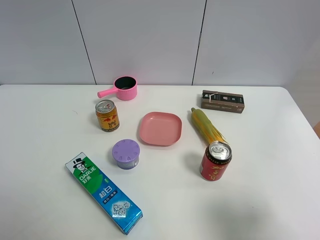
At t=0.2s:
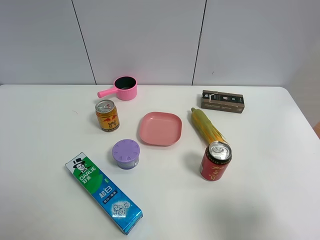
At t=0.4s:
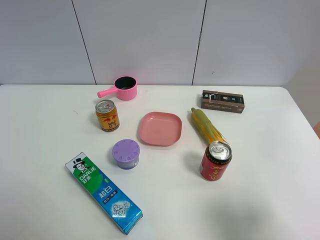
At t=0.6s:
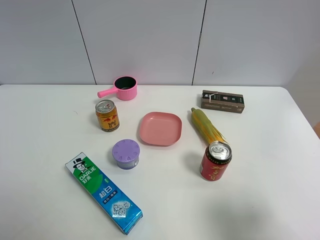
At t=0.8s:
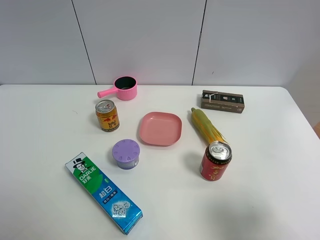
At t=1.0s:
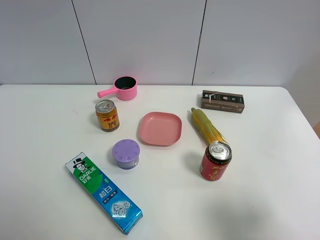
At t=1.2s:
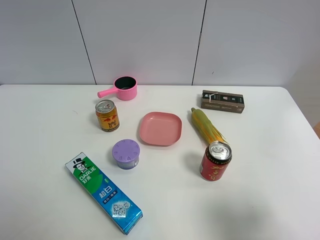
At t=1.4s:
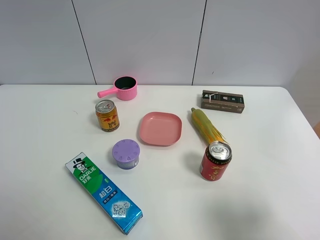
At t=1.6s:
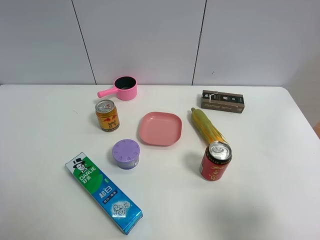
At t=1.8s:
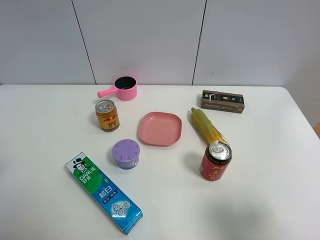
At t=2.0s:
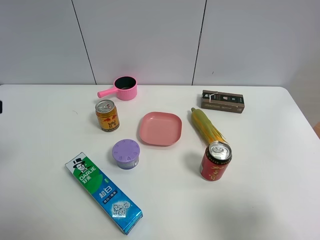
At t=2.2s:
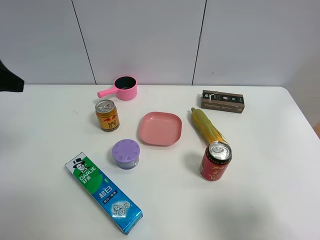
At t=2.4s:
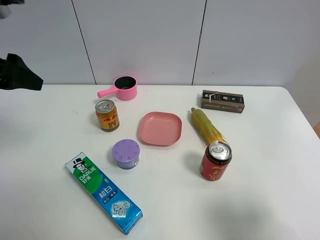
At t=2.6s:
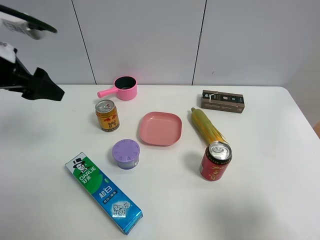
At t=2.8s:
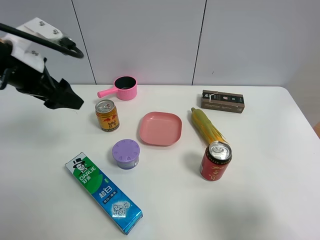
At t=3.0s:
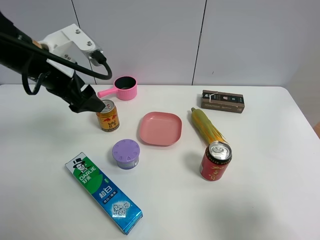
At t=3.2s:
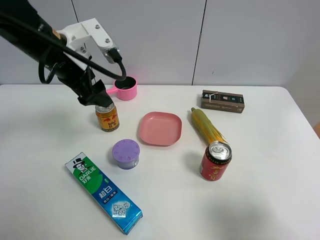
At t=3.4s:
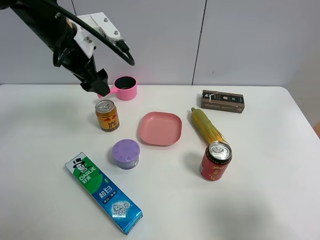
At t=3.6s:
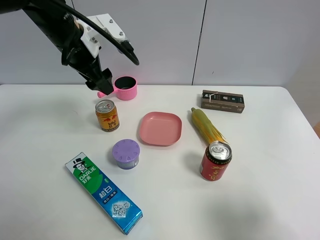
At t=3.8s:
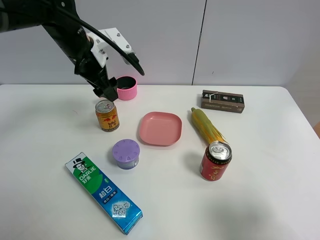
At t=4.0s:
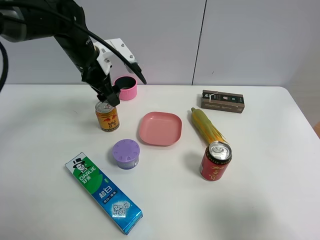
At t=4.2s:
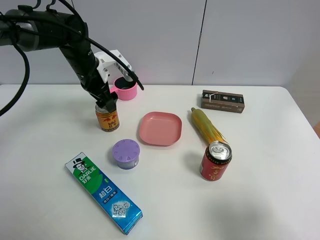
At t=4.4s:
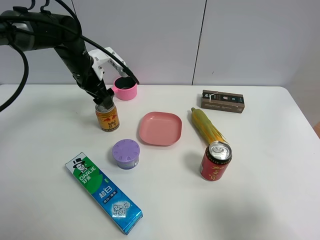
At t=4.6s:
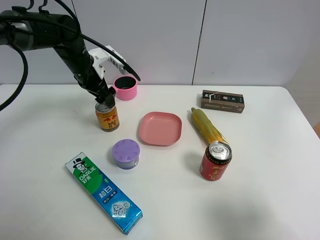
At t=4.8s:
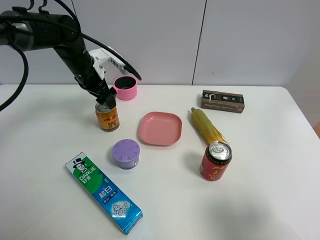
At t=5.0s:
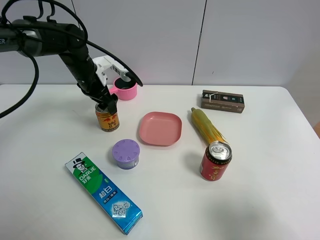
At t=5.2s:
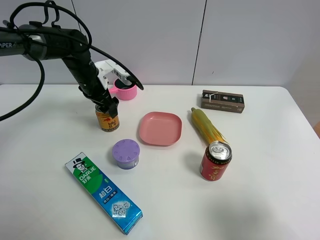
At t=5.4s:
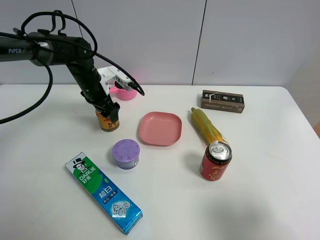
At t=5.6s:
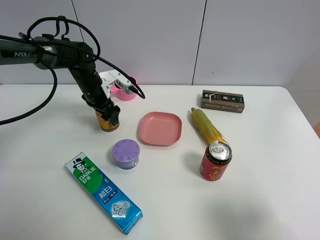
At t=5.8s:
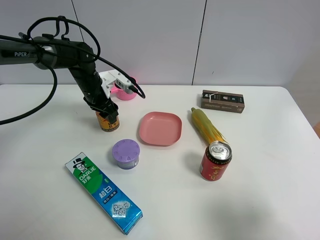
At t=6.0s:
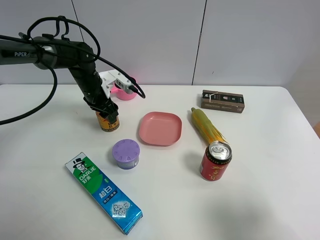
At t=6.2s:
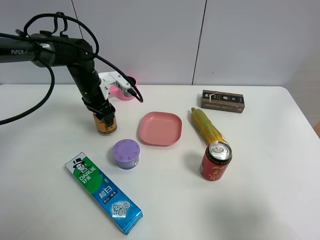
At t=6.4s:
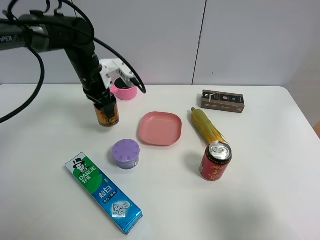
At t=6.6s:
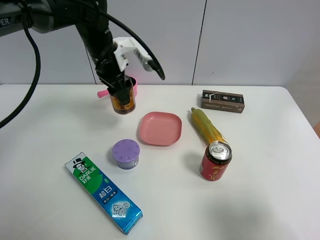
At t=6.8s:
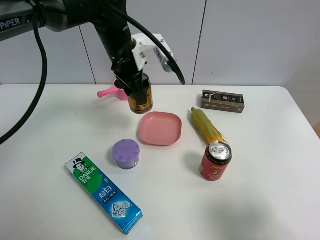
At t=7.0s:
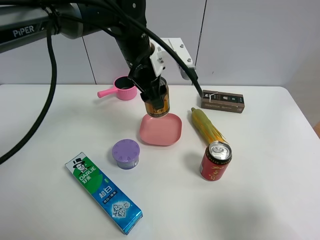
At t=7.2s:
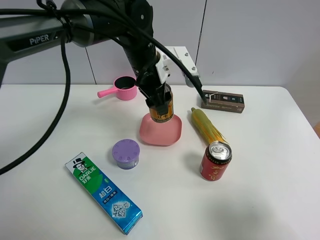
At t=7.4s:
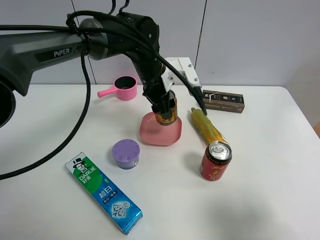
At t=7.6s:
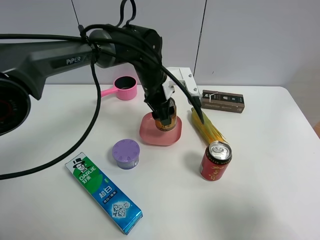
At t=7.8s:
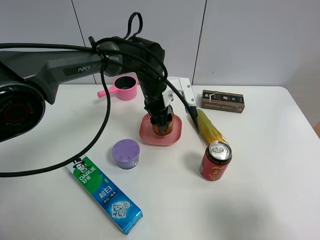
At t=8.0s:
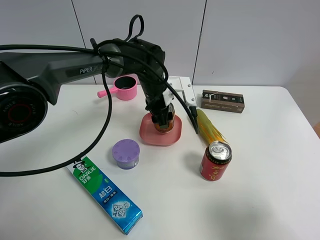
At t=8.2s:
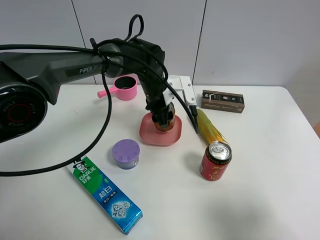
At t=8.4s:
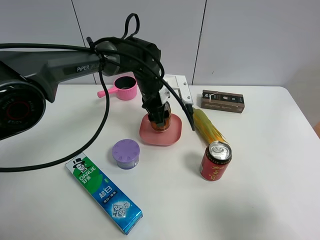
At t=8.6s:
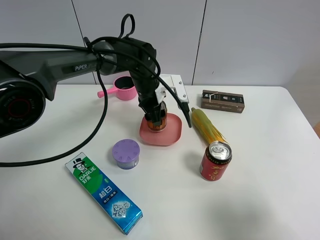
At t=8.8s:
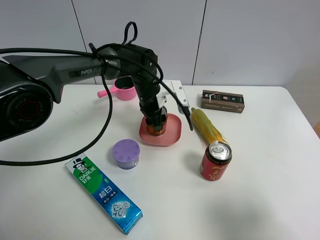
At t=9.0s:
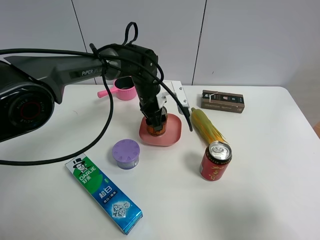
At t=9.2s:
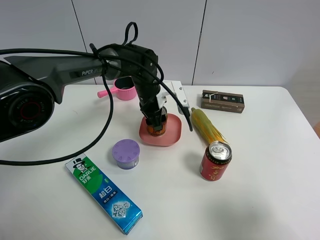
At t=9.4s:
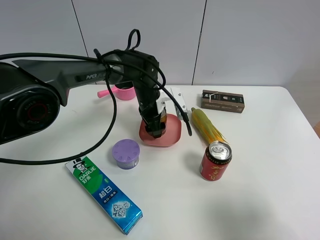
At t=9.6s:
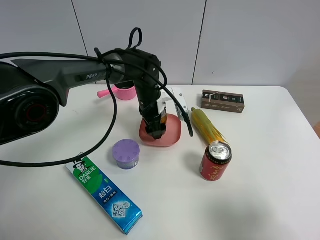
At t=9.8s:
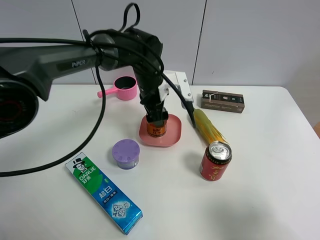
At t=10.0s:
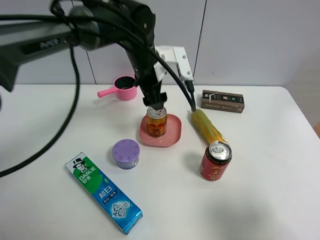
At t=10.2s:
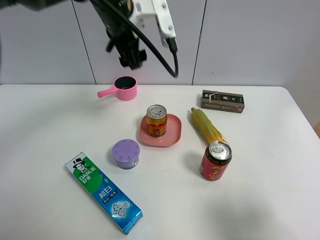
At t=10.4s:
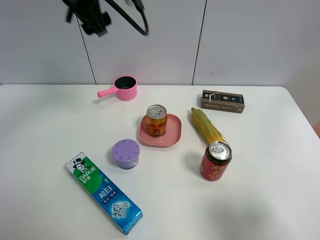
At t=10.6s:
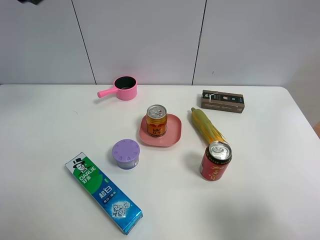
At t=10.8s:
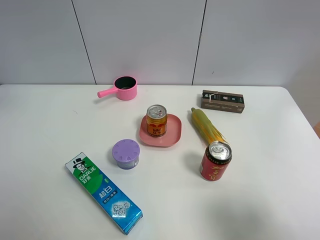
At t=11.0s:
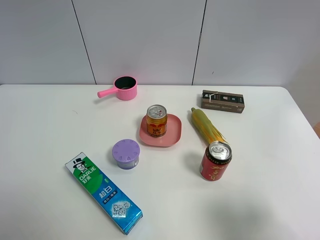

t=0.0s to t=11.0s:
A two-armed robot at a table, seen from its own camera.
Task of the whole recording: the gripper move the object.
Step, t=0.0s to t=5.8s: Grasp the Jia Duo Bao with the left gripper.
Step, t=6.0s to t=9.8s: Place the Jia Duo Bao into the pink plate with the left gripper.
t=1.6s to t=3.2s: The left gripper shifts roughly 30 cm forward and to the right.
t=3.2s to t=4.8s: The left gripper moves downward and forward, roughly 15 cm.
t=4.8s to t=6.2s: The left gripper closes.
t=6.2s to t=7.8s: The left gripper goes roughly 15 cm to the right.
t=7.8s to t=9.4s: The left gripper opens its fingers.
t=9.4s to t=11.0s: The left gripper heads upward, to the left and backward, covering about 60 cm.

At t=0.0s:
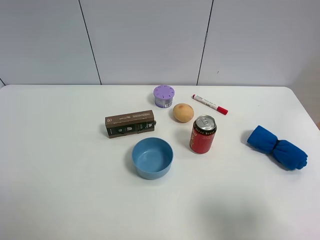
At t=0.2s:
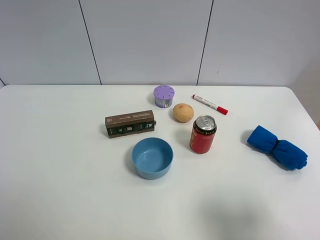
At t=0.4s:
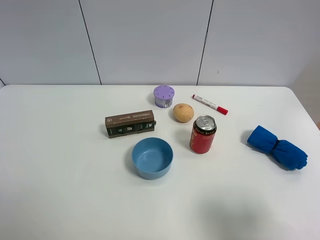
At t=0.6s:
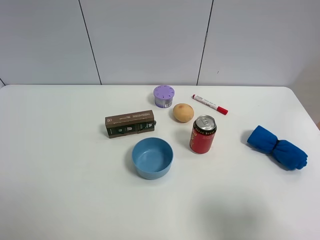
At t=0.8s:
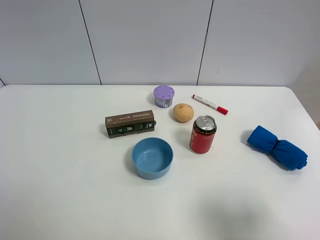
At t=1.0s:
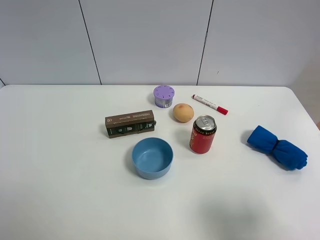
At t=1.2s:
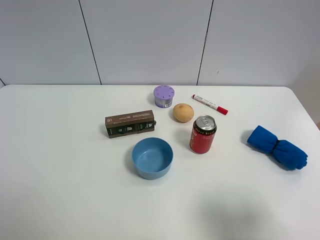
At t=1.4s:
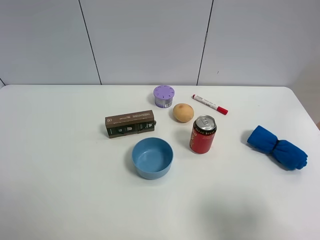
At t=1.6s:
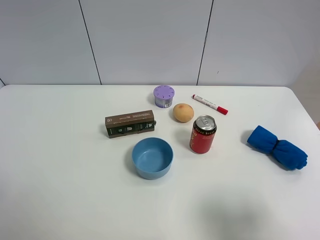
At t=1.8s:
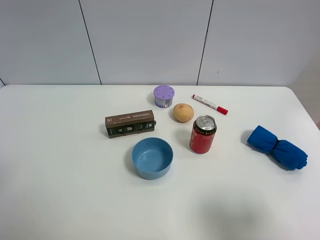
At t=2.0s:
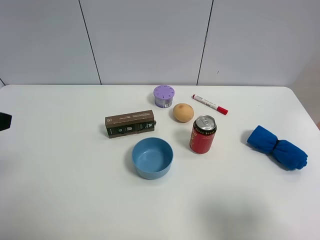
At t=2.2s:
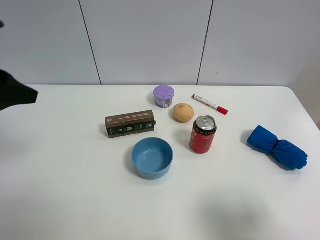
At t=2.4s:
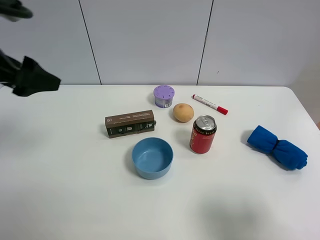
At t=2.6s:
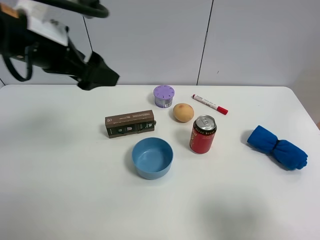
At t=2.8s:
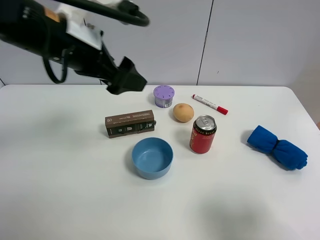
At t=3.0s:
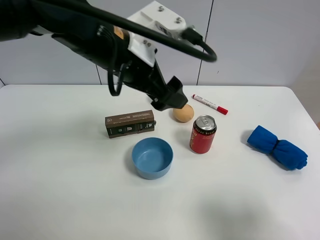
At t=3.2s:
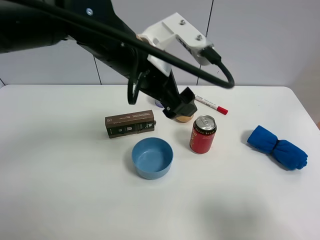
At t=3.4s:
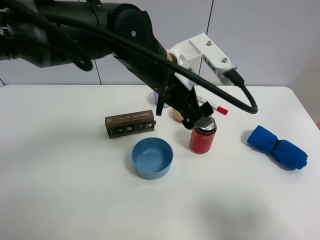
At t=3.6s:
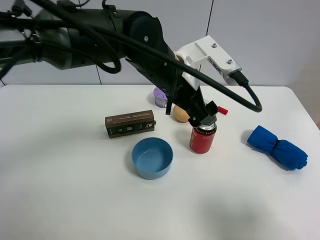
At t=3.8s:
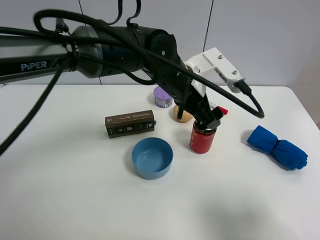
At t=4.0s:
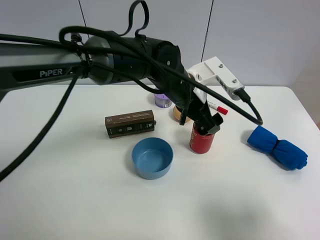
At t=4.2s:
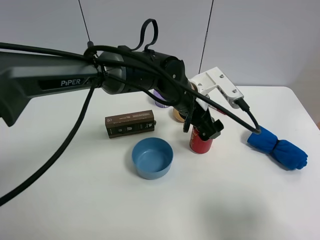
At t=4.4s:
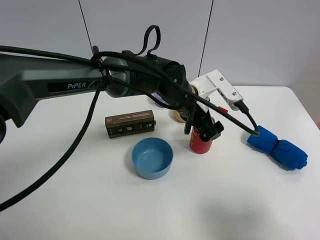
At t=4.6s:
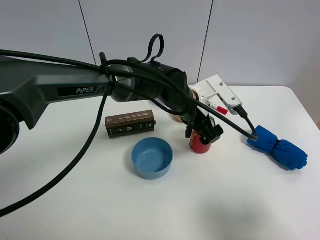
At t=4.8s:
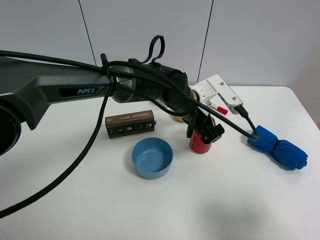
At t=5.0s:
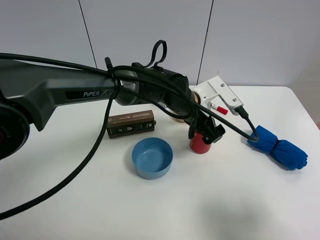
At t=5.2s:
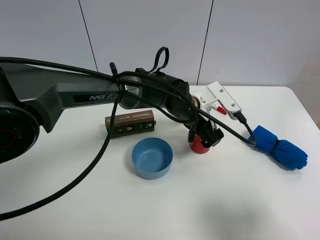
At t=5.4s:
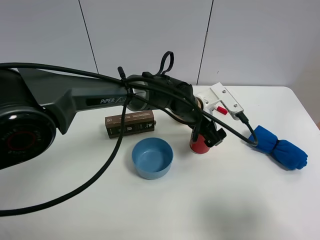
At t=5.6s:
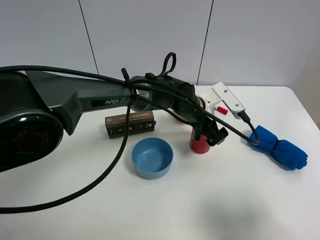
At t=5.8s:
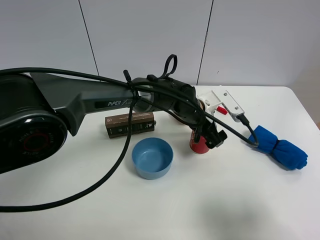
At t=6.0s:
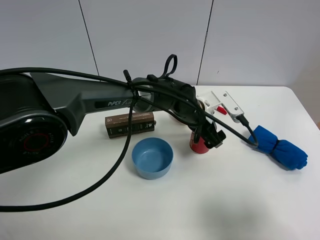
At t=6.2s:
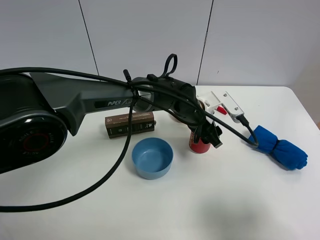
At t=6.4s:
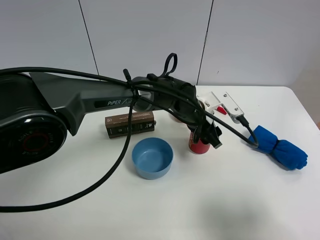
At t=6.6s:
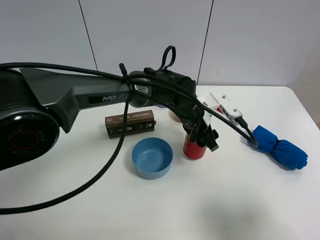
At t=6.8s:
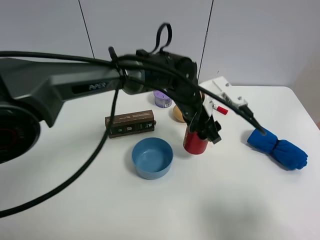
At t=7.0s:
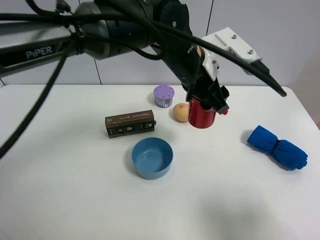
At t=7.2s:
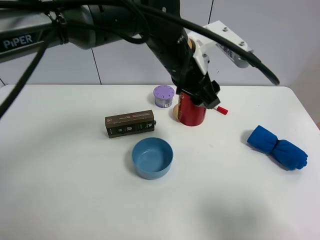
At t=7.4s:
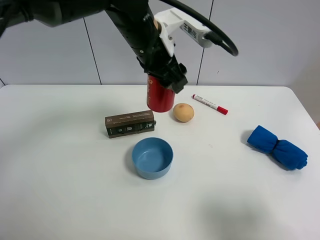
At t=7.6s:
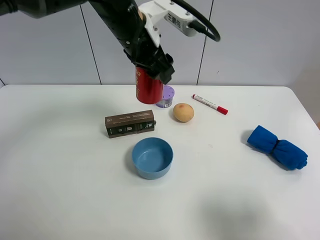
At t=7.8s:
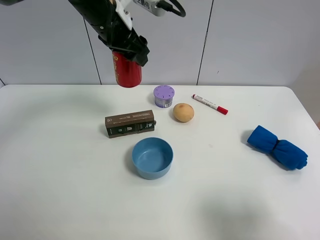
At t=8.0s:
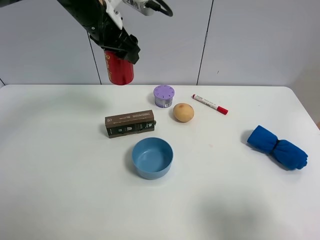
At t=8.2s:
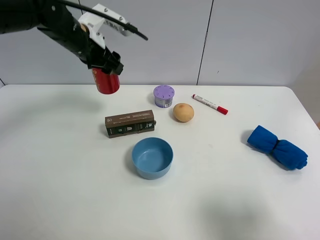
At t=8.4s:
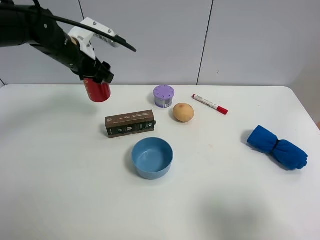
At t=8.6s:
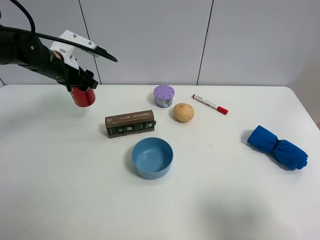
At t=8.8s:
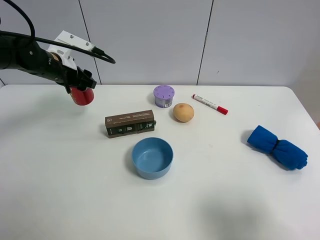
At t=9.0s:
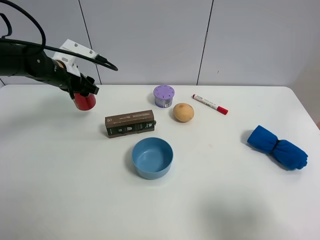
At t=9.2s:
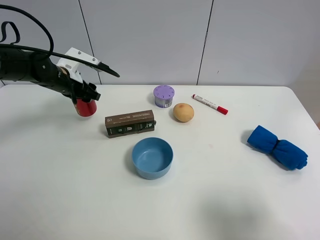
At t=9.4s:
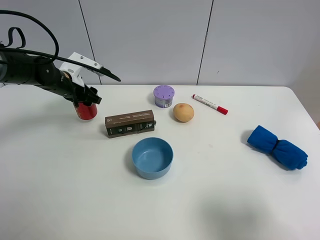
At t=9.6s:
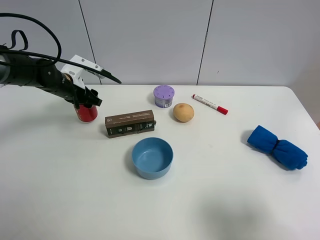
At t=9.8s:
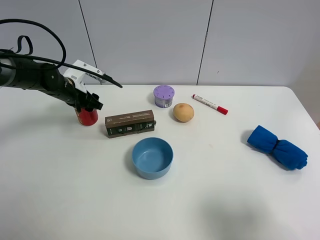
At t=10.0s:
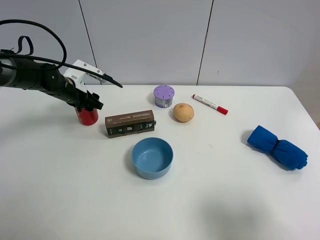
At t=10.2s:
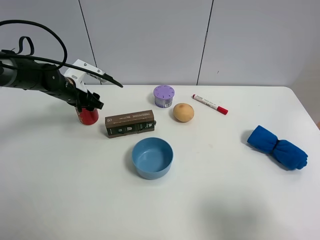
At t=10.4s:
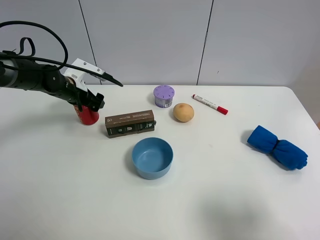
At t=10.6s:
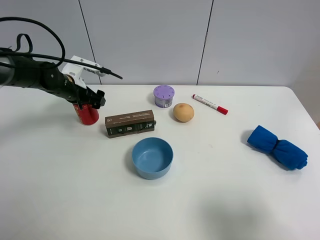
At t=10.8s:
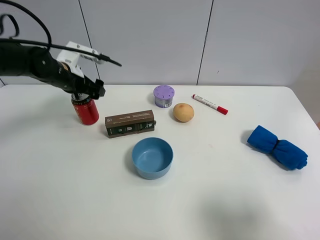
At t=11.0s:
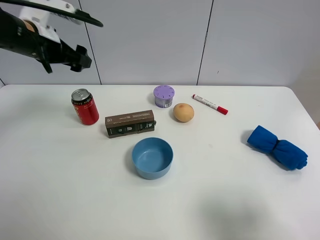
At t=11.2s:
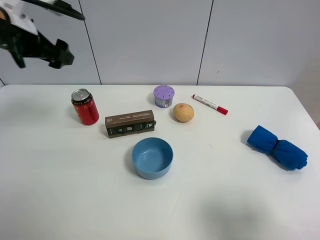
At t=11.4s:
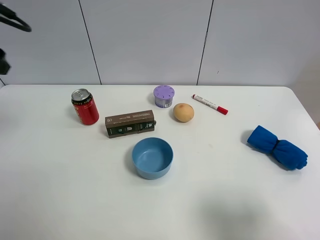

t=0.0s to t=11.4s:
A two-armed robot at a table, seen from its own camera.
Task of the whole recording: the gripper move the object.
Step, t=0.0s to t=6.0s: Grasp the Jia Duo Bao with the left gripper.
Step, t=6.2s to t=10.6s: Place the Jia Duo Bao on the table with the left gripper.
t=1.4s to t=2.8s: The left gripper is displaced forward and to the right by roughly 30 cm.
t=2.8s to t=4.2s: The left gripper moves to the right and downward, about 20 cm.
t=4.2s to t=5.6s: The left gripper heads downward, covering roughly 5 cm.
t=5.6s to t=7.2s: The left gripper is displaced upward by approximately 15 cm, and closes its fingers.
t=7.2s to t=8.6s: The left gripper is displaced to the left by some 25 cm.
t=8.6s to t=10.0s: The left gripper moves downward, some 10 cm.
t=10.0s to t=11.4s: The left gripper heads upward and backward, covering approximately 25 cm, and opens its fingers.
